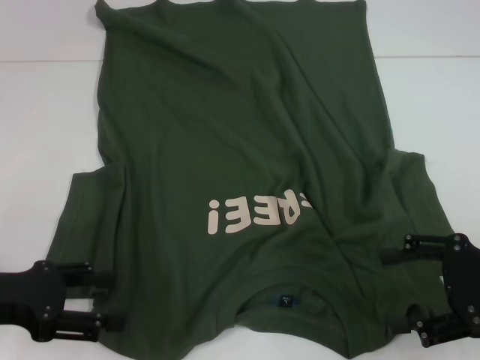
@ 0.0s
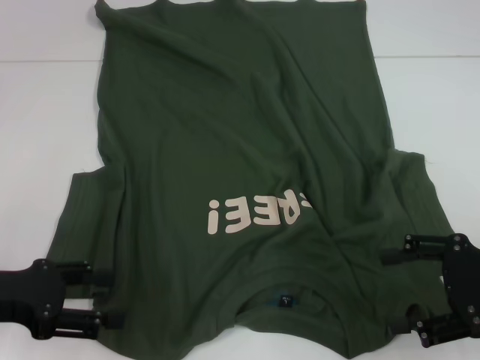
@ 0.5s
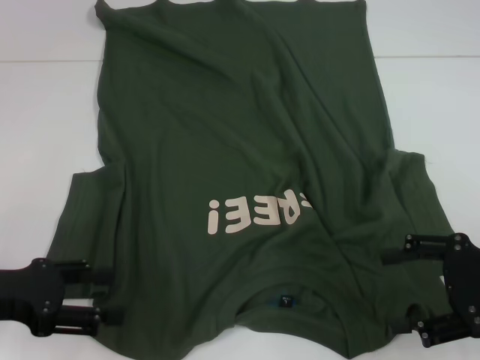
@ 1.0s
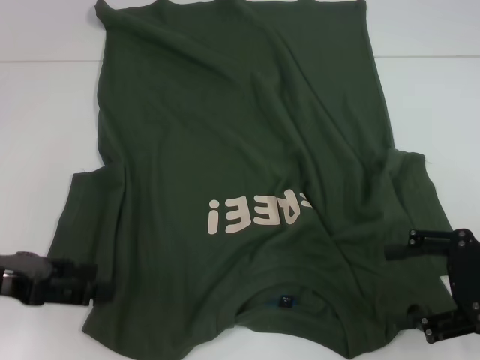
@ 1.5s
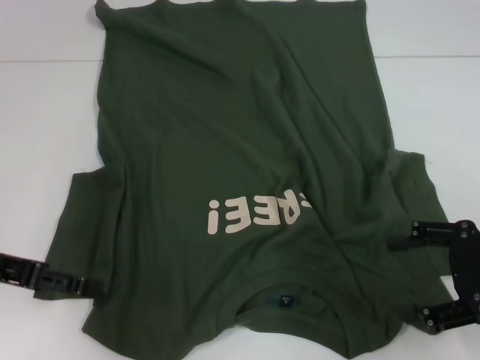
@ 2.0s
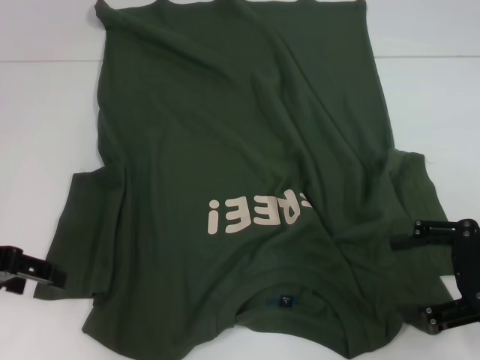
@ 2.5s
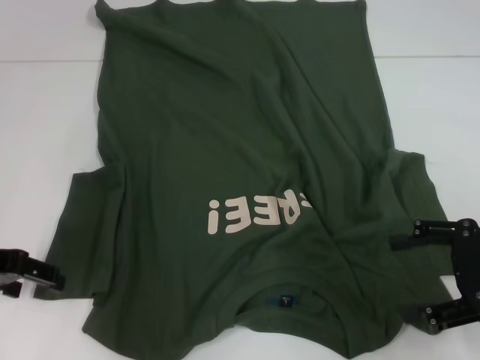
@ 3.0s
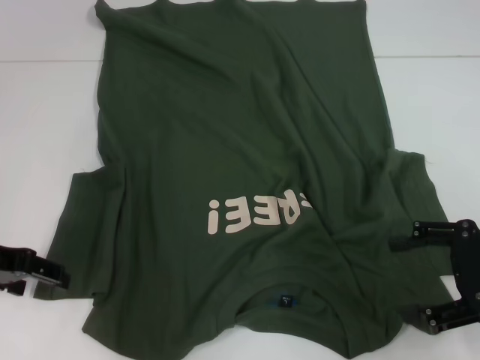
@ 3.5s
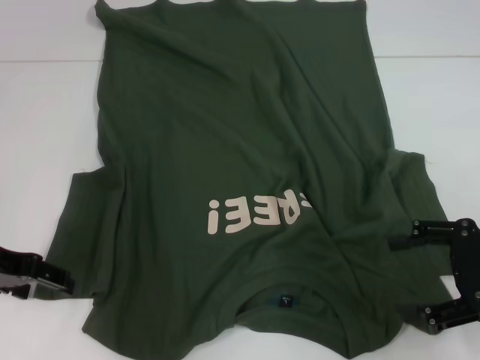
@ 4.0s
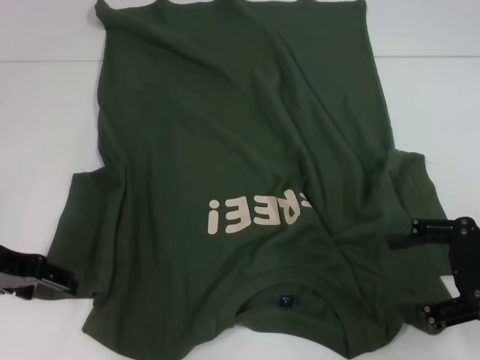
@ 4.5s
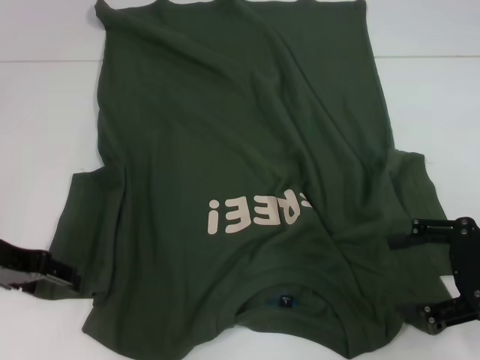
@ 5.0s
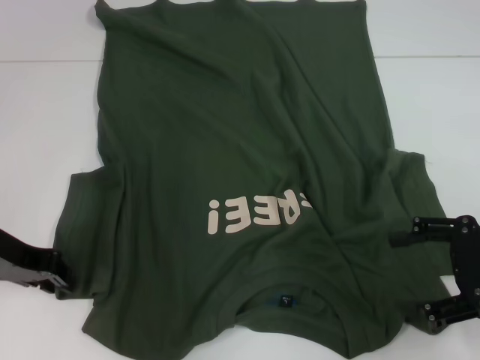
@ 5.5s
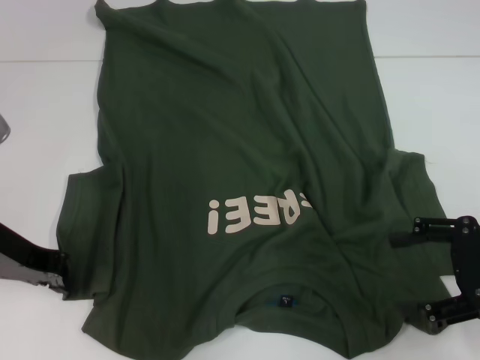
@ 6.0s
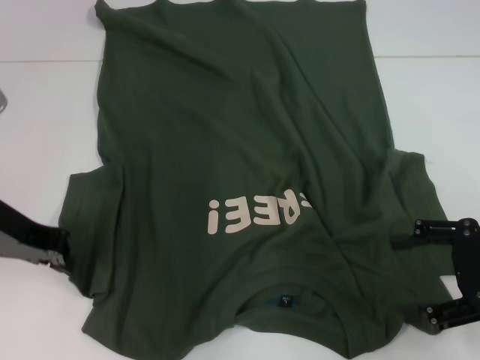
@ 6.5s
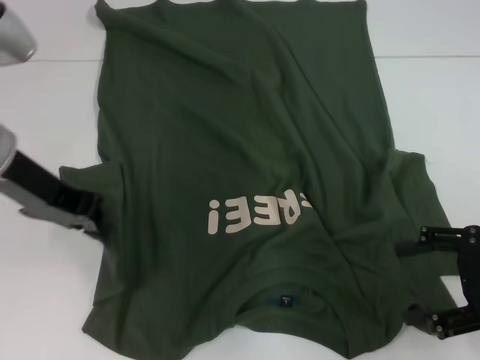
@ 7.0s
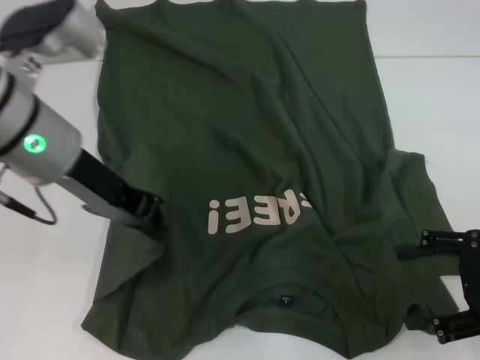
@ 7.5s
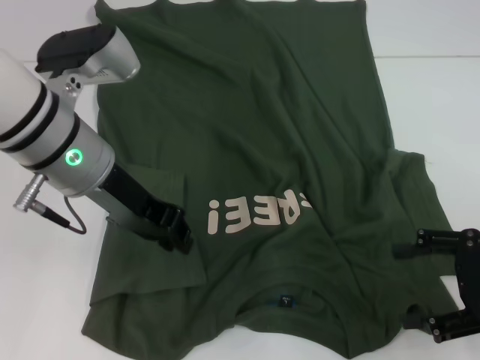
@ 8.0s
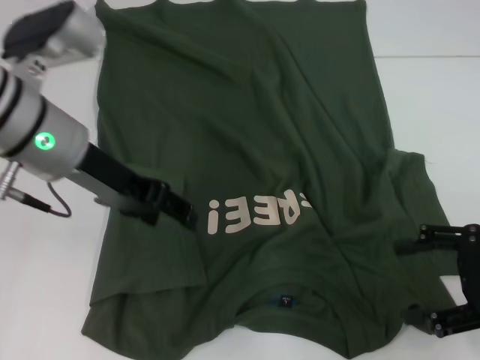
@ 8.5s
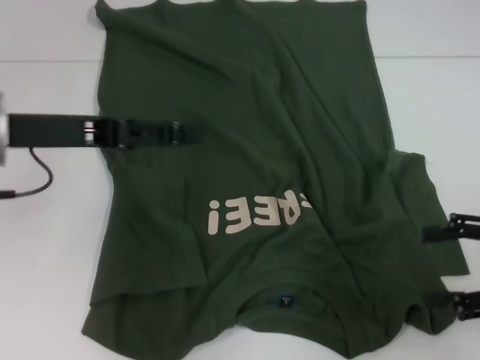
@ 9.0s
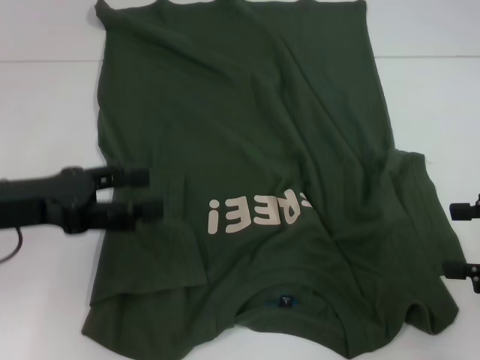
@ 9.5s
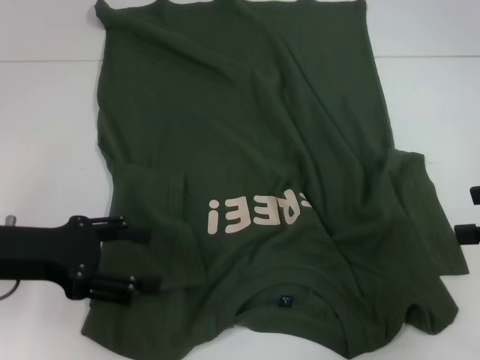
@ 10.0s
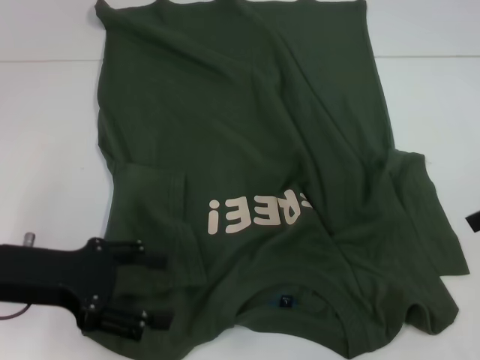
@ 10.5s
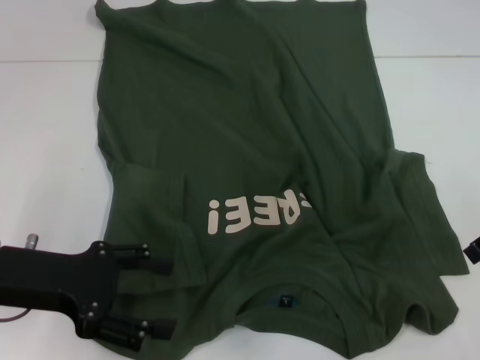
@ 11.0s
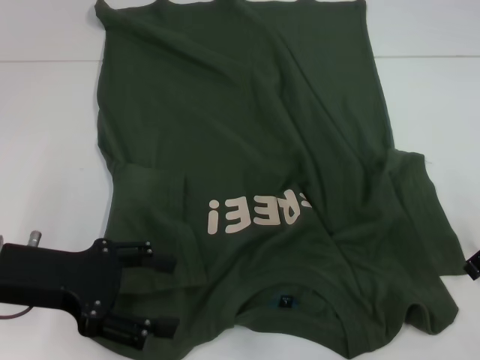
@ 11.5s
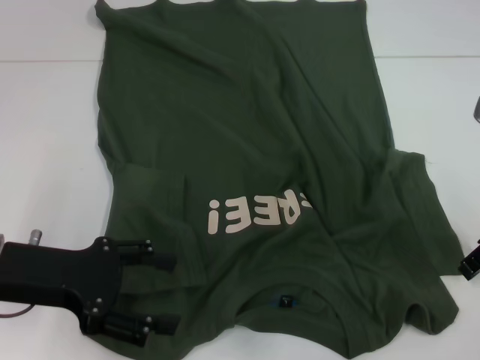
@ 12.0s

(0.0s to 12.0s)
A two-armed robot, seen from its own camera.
Step, 0.0s - 11.0s: Fold the bottom left sleeve with your left hand.
0.0s - 2.0s: The left gripper shifts by approximately 5 cm.
4.0s - 6.0s: The left gripper closes.
6.0s - 8.0s: The left gripper is displaced to the right and upward by roughly 10 cm.
8.0s - 10.0s: The right gripper is displaced upward by approximately 5 cm; the left gripper travels to the left, backward and downward by approximately 15 cm, and opens.
10.0s - 12.0s: The right gripper travels forward and to the left by roughly 10 cm.

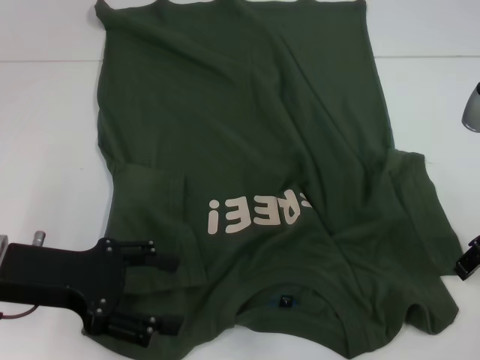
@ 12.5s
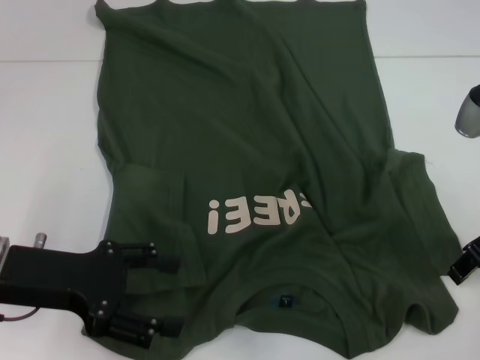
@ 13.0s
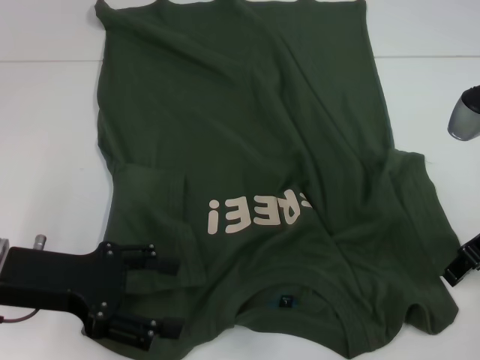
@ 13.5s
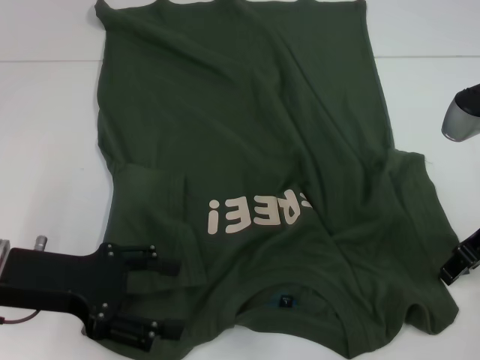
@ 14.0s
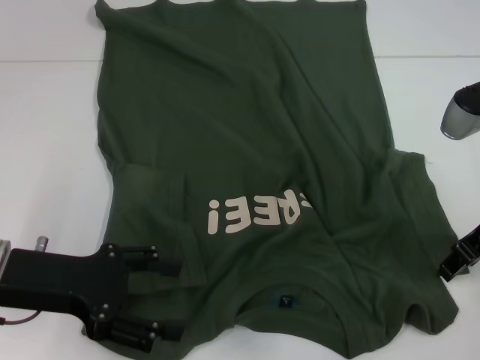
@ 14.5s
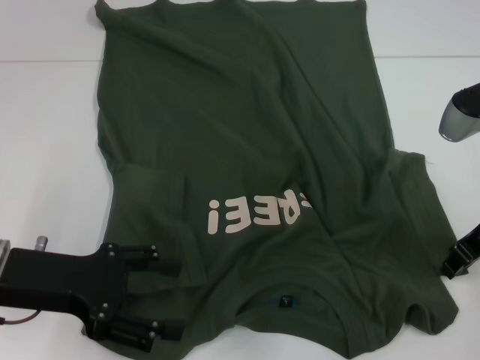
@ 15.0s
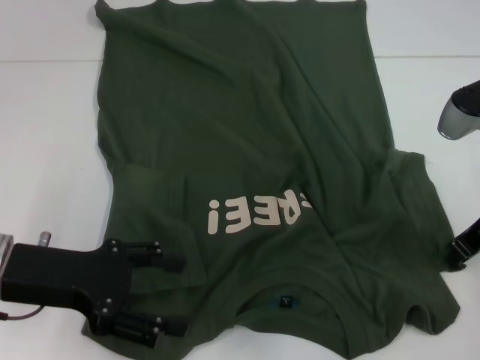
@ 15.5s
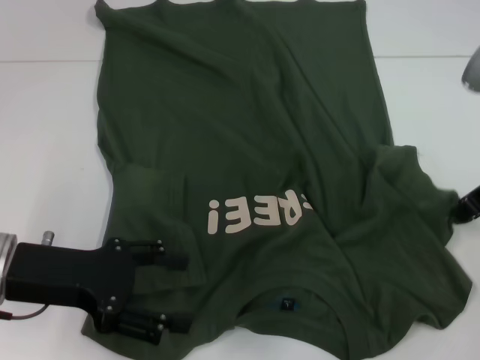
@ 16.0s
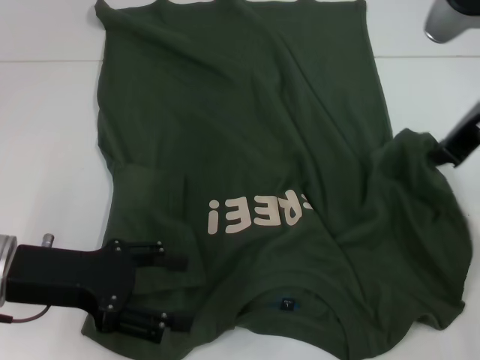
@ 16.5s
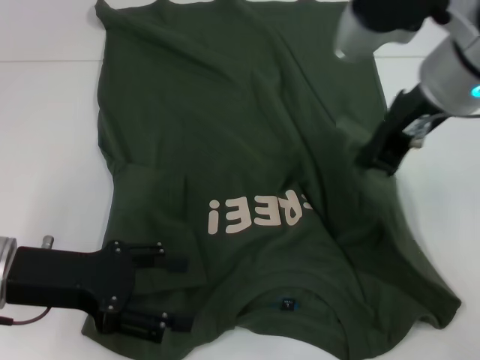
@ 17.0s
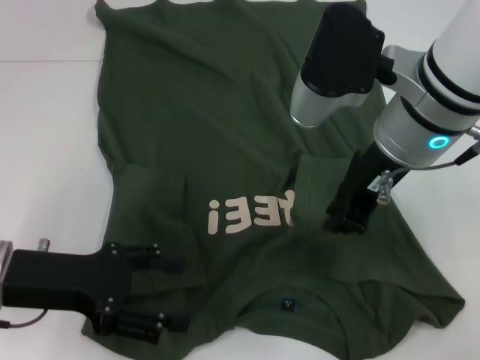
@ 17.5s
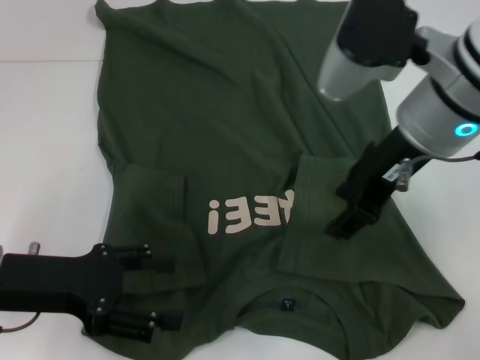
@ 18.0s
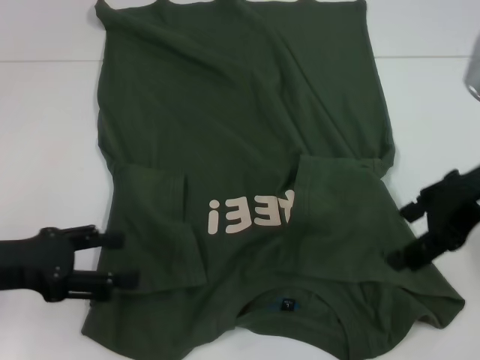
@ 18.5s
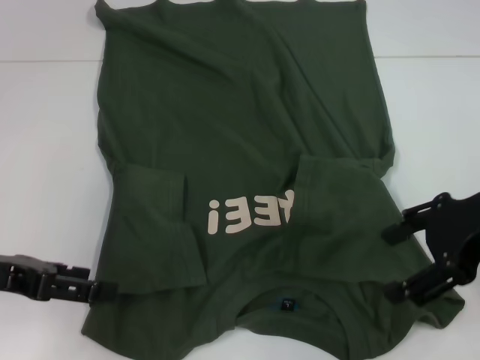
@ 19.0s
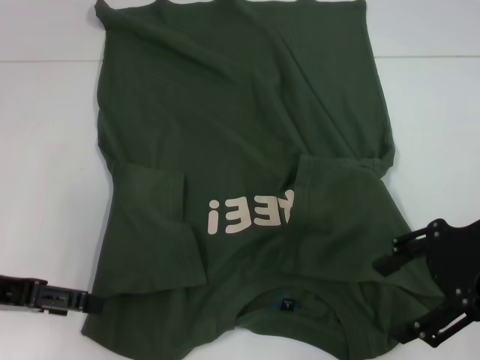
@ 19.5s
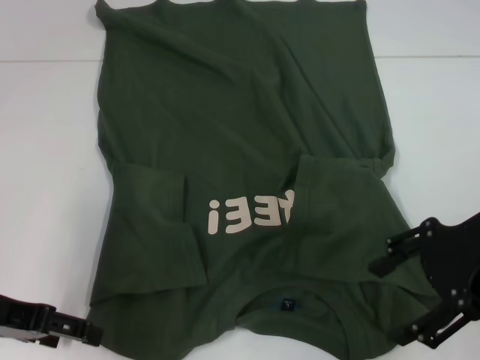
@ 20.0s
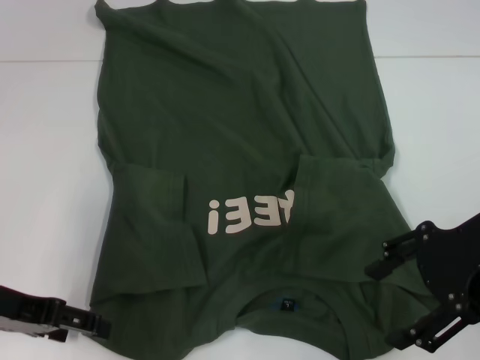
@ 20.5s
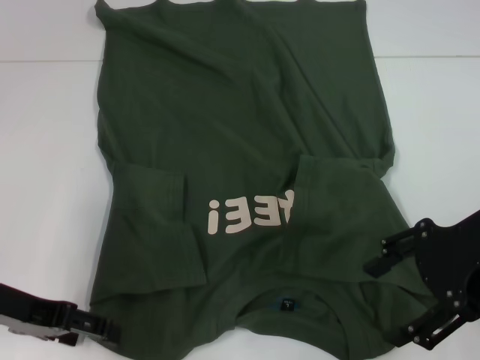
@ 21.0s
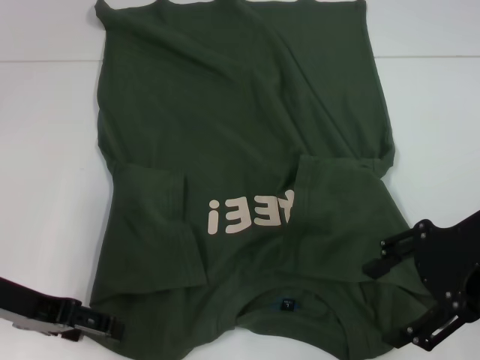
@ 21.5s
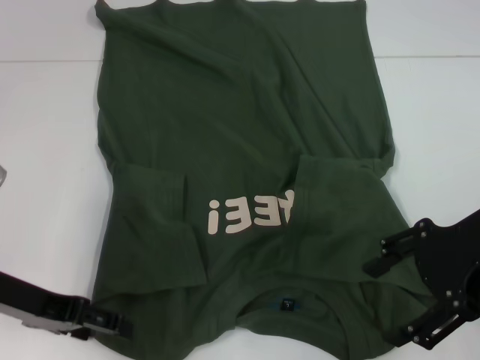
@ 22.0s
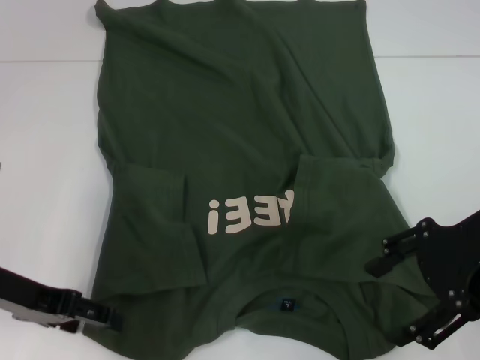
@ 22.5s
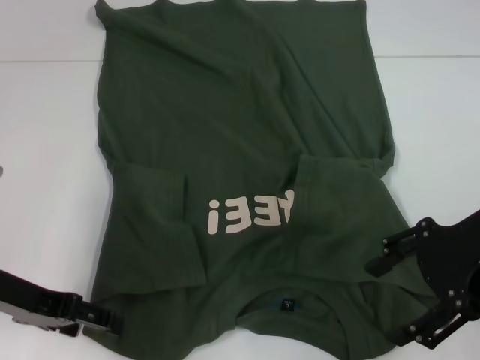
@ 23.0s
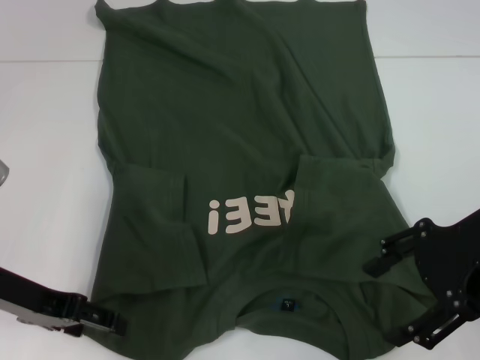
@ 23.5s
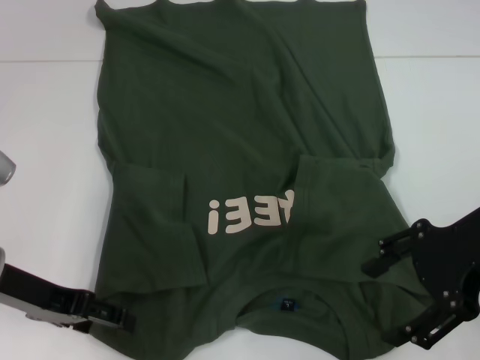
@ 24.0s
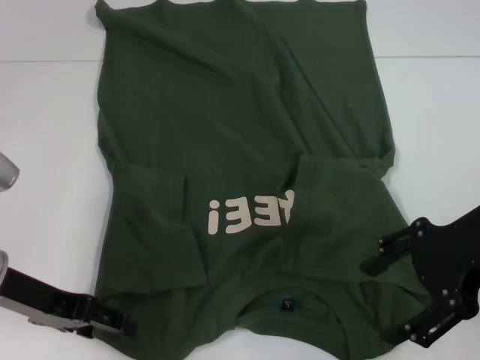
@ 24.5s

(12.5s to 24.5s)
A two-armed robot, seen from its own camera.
Step, 12.5s - 18.0s: Fold the bottom right sleeve with your right hand.
12.5s - 14.5s: The grippers stay close to where they were, moving slightly.
14.5s - 16.5s: The right gripper travels upward by roughly 10 cm, and closes up.
16.5s - 18.5s: The left gripper moves about 5 cm. Meanwhile the right gripper goes to the left and returns, about 10 cm each way, and opens its fingers.
20.5s - 22.5s: The grippers move only a little.
22.5s - 24.5s: Neither gripper changes place.

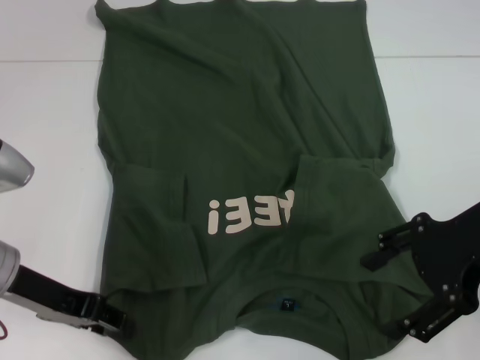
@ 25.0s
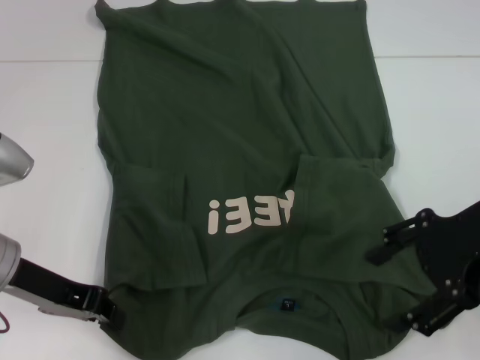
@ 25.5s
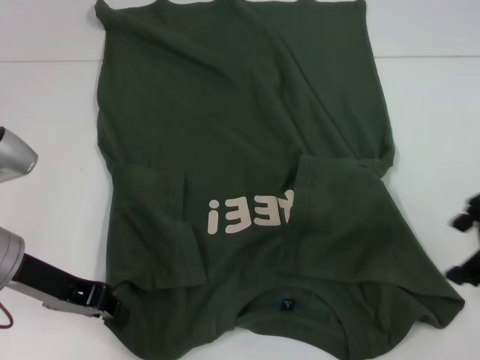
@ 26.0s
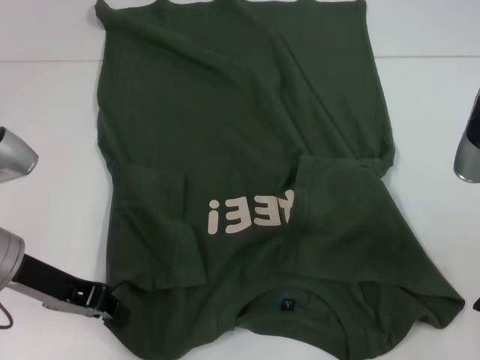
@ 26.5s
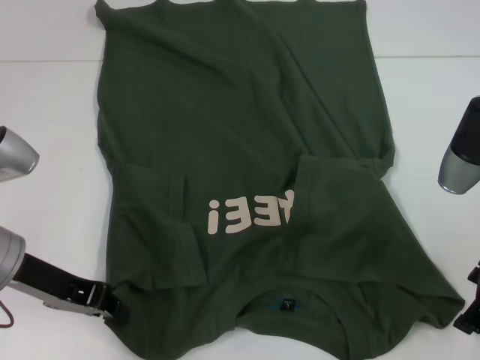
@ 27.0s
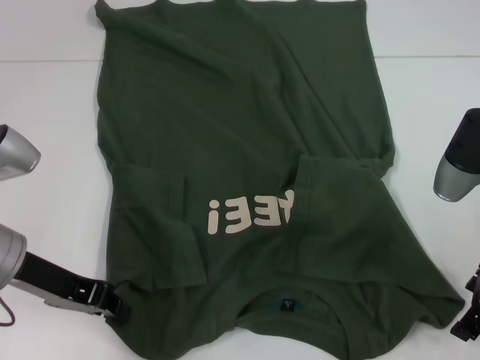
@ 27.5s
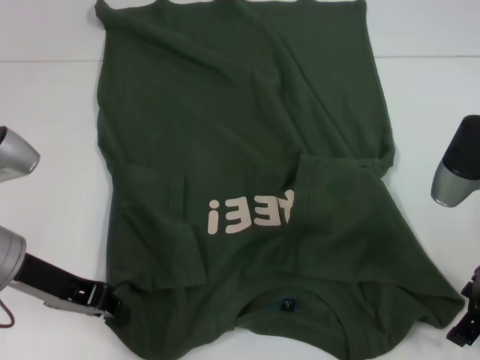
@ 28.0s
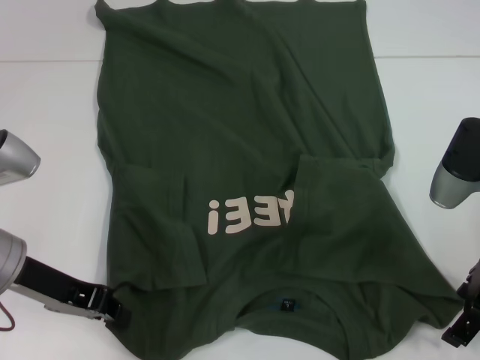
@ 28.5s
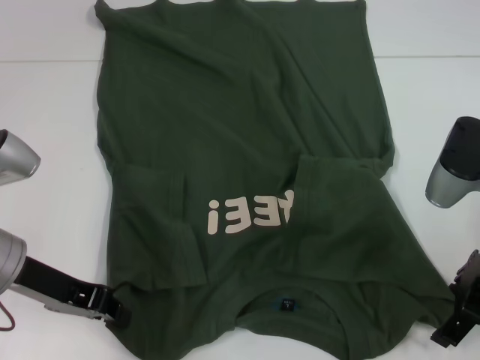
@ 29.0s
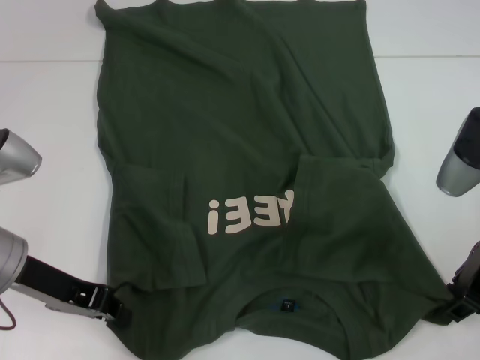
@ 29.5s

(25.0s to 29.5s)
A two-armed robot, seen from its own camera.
25.0s - 27.0s: The left gripper closes.
27.0s - 29.5s: The grippers make only small movements.
